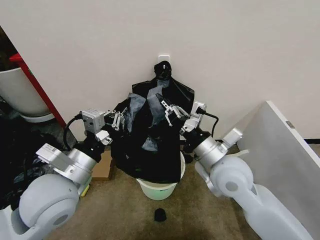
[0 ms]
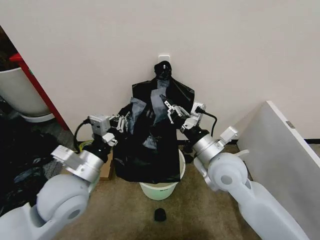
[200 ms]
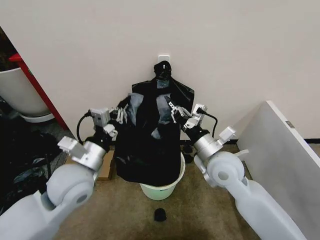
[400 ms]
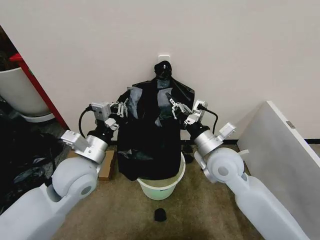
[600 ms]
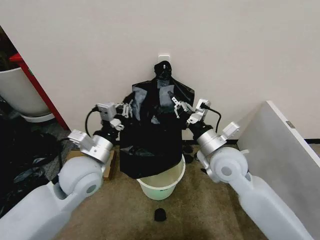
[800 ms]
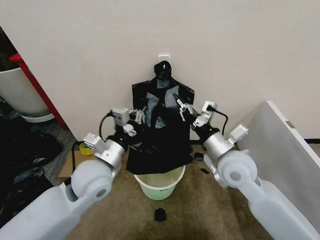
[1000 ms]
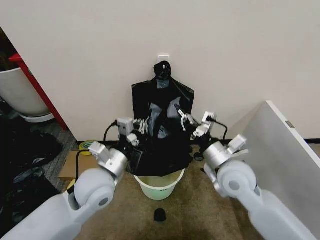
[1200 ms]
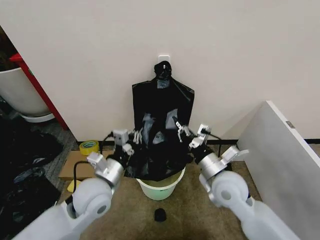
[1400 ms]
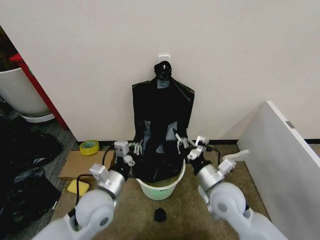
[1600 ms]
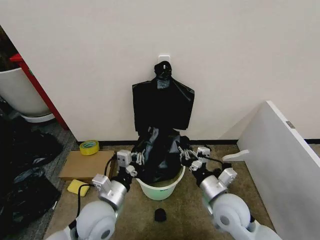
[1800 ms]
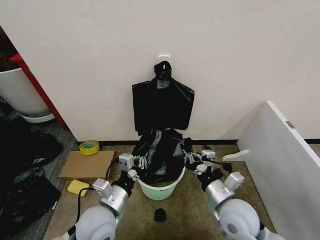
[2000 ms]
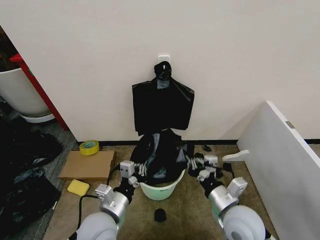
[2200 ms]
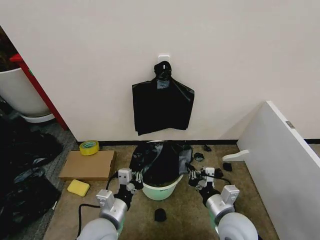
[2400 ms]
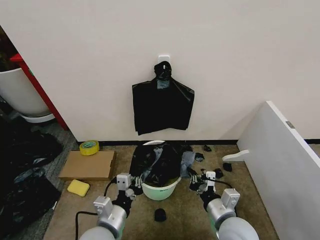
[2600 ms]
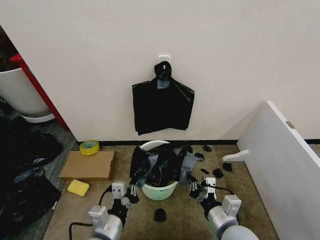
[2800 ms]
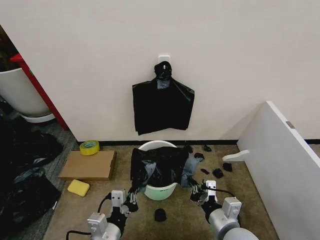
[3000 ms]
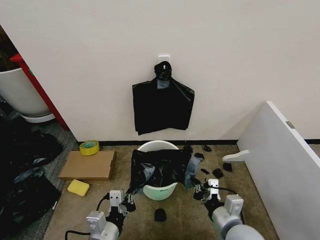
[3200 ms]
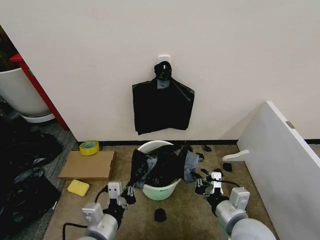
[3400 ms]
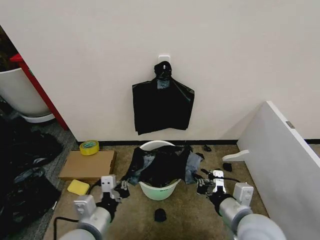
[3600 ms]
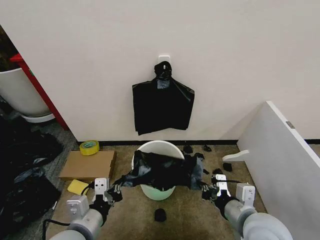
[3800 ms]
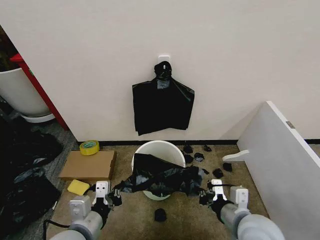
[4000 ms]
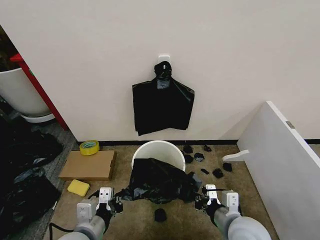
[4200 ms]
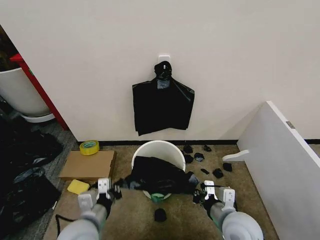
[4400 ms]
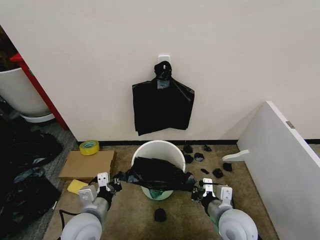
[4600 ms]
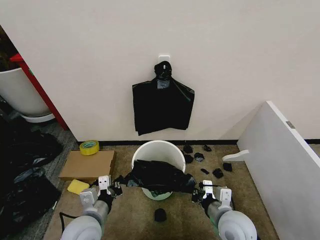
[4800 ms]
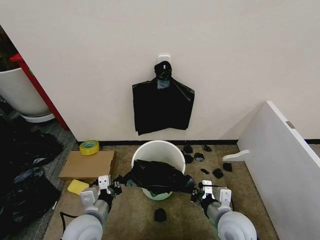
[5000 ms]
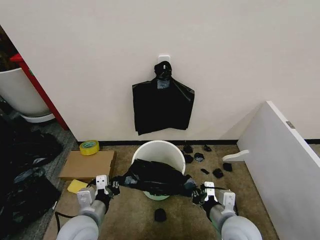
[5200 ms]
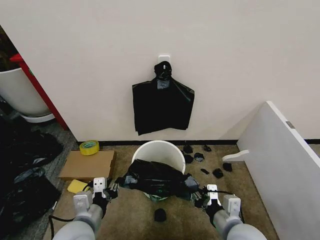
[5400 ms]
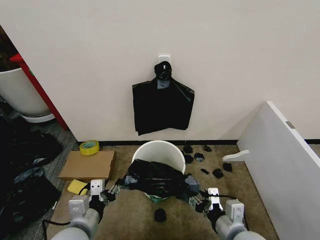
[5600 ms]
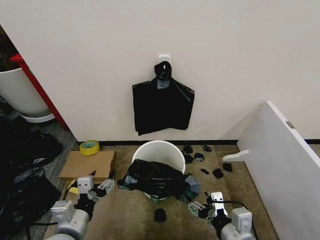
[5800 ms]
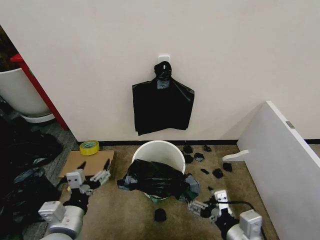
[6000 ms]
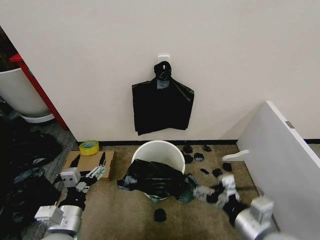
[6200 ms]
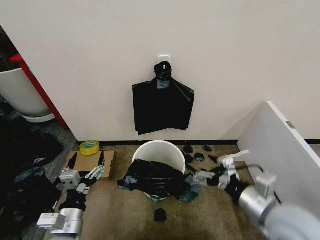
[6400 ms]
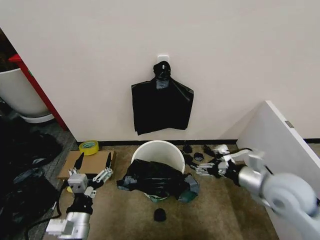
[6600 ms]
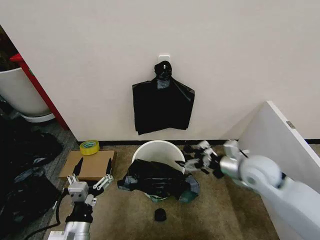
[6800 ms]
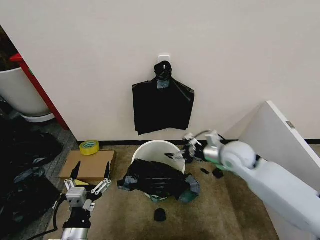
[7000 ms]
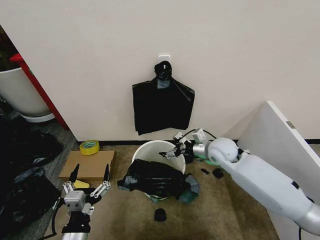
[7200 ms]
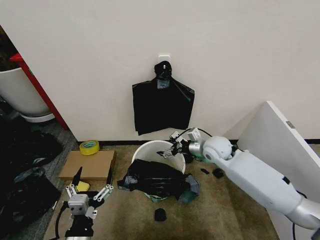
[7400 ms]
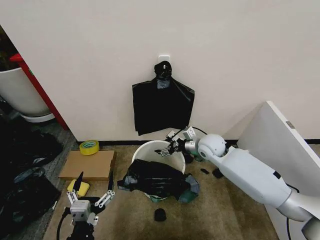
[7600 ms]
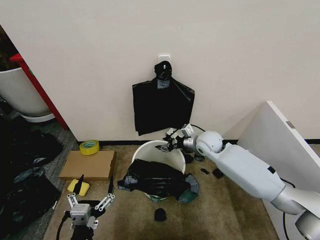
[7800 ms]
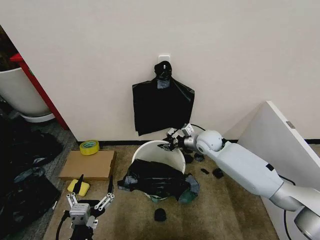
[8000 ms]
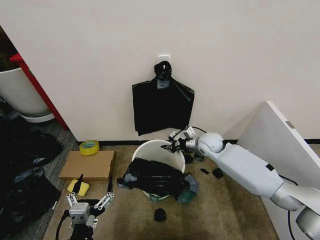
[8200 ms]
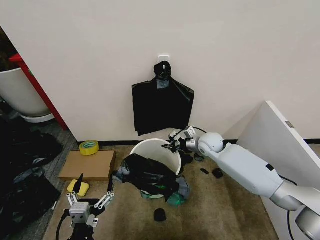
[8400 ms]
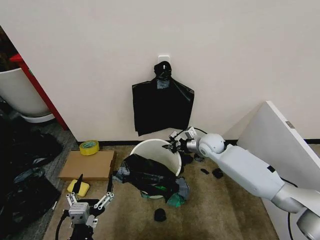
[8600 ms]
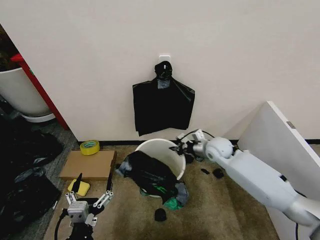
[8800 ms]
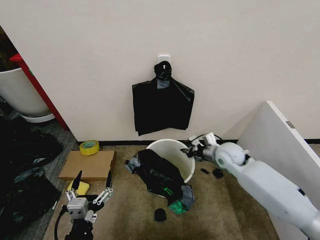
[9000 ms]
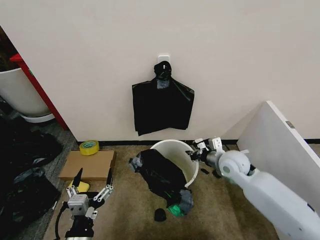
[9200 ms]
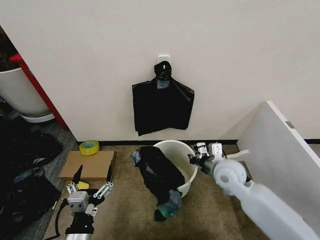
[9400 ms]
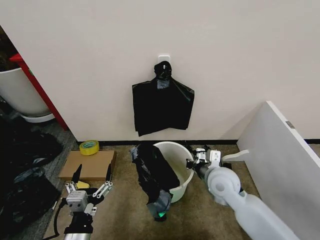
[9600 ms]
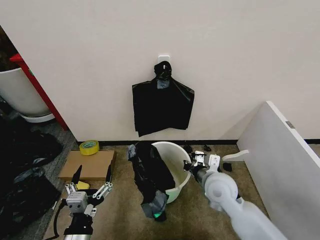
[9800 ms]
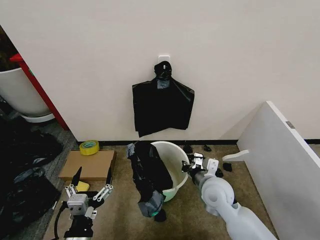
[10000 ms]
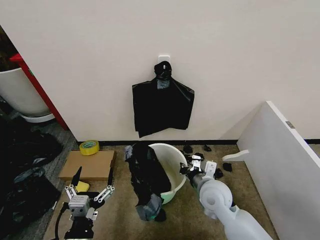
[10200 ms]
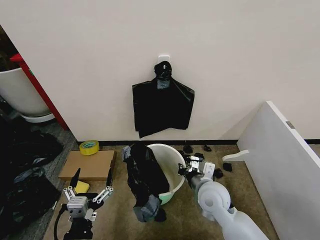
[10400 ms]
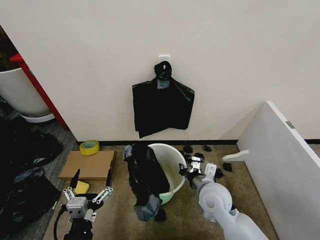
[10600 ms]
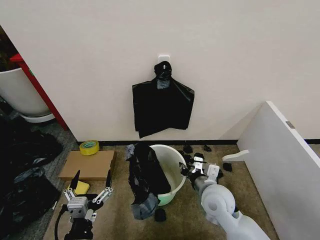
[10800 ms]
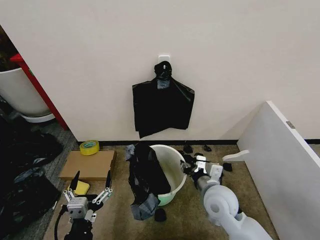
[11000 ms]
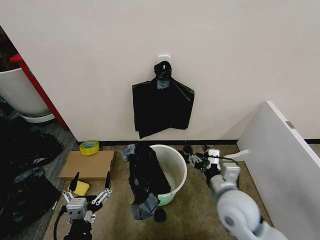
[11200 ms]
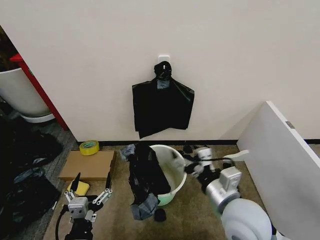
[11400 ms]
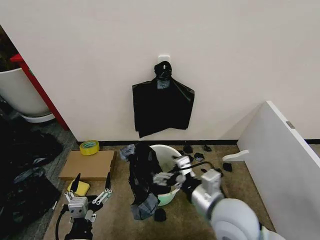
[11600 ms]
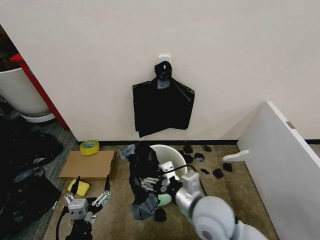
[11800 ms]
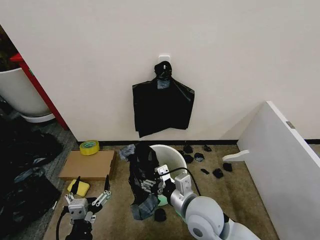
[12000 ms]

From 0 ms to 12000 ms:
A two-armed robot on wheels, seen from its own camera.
Task of the whole recording: Place the garbage bag over the trash bin.
From 0 ms to 1600 ms: Both grippers travel together downward, about 10 cm.
From 1600 ms to 3000 ms: Both grippers travel together backward, some 10 cm.
From 3000 ms to 4400 ms: The left gripper goes about 5 cm forward.
From 4400 ms to 6000 ms: The right gripper goes roughly 10 cm backward and upward, and opens its fingers, while the left gripper ends up about 5 cm from where it was, and opens its fingers.
From 6000 ms to 7600 ms: The left gripper shifts roughly 10 cm backward and downward. The right gripper heads forward, covering roughly 35 cm.
From 7600 ms to 9000 ms: The right gripper moves to the right, approximately 5 cm, and closes up.
From 9000 ms to 10400 ms: The right gripper travels backward and to the left by approximately 15 cm.
From 10400 ms to 12000 ms: The right gripper heads backward and to the left, covering approximately 10 cm, and opens its fingers.

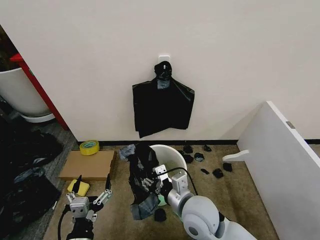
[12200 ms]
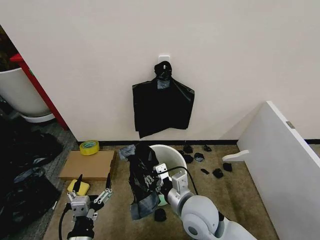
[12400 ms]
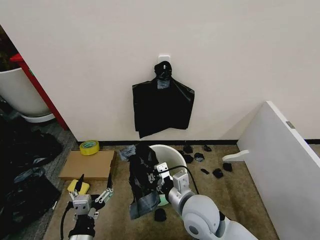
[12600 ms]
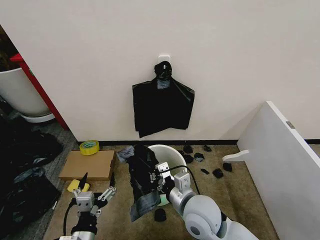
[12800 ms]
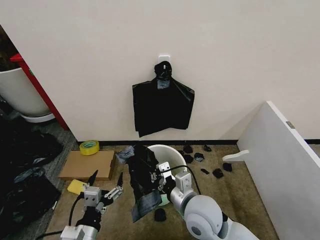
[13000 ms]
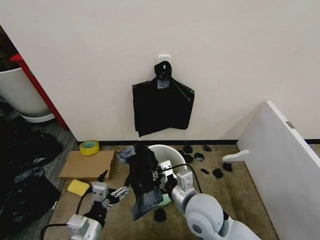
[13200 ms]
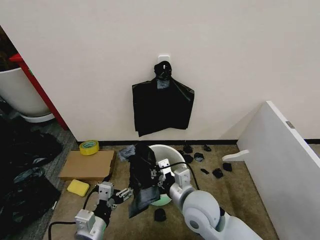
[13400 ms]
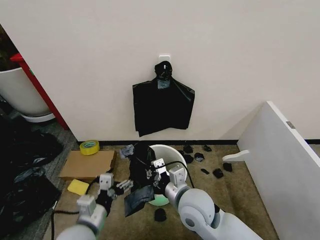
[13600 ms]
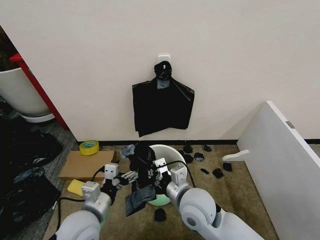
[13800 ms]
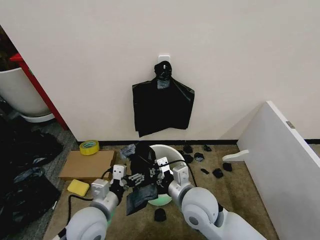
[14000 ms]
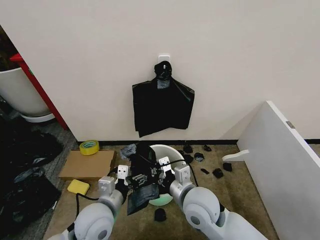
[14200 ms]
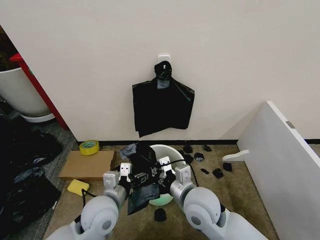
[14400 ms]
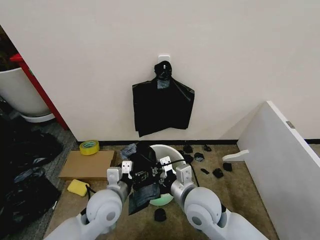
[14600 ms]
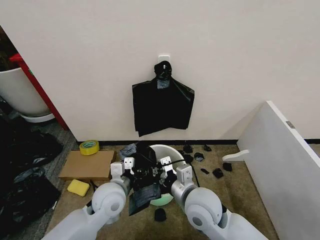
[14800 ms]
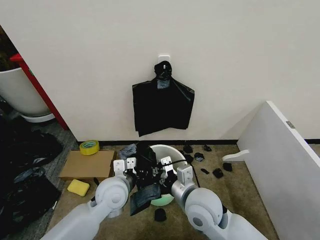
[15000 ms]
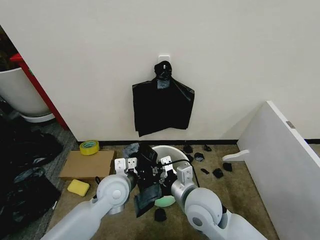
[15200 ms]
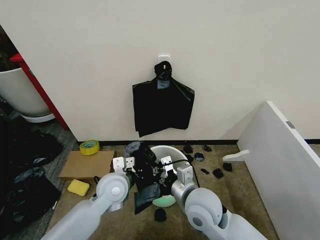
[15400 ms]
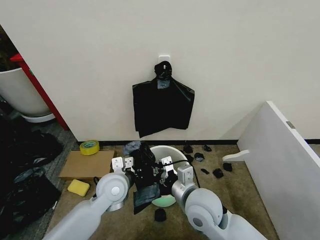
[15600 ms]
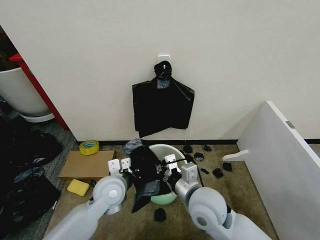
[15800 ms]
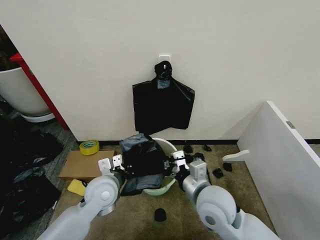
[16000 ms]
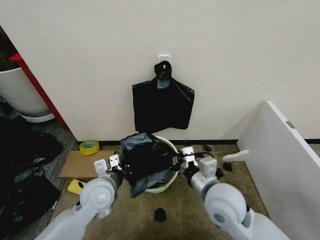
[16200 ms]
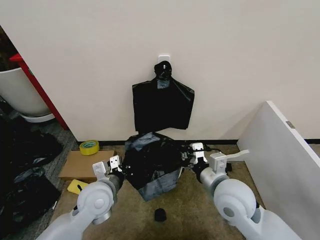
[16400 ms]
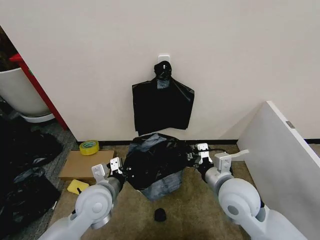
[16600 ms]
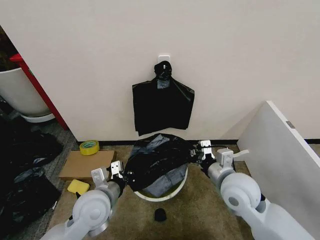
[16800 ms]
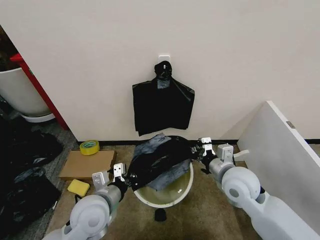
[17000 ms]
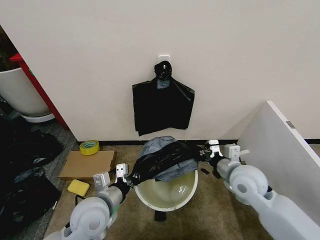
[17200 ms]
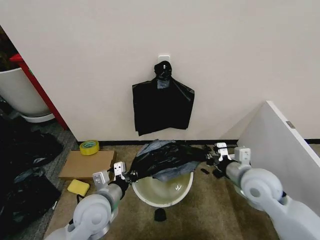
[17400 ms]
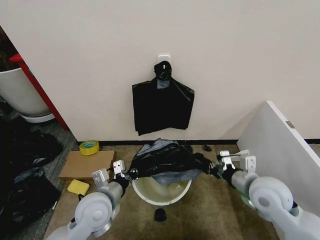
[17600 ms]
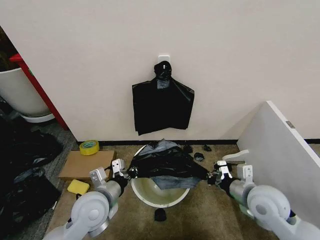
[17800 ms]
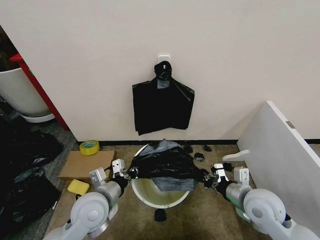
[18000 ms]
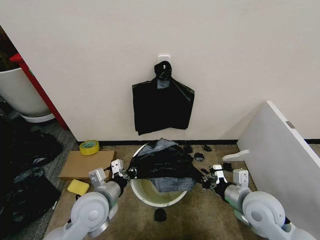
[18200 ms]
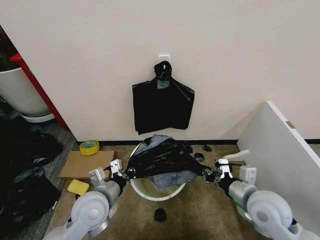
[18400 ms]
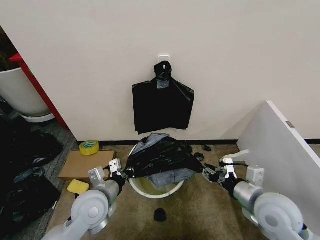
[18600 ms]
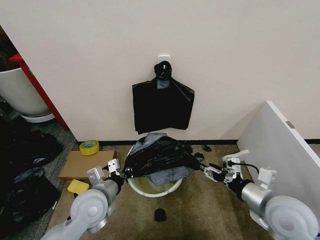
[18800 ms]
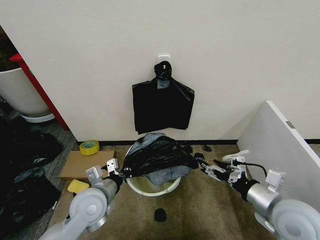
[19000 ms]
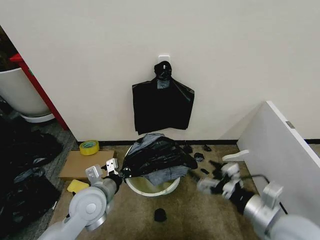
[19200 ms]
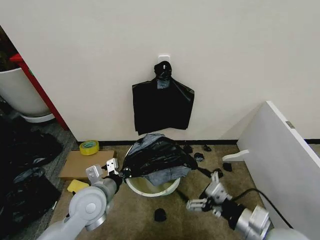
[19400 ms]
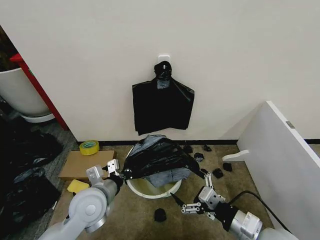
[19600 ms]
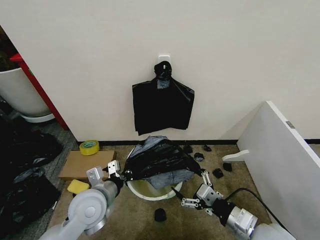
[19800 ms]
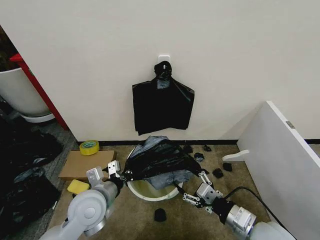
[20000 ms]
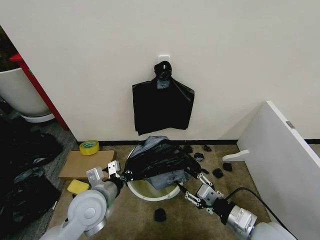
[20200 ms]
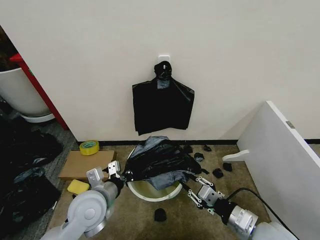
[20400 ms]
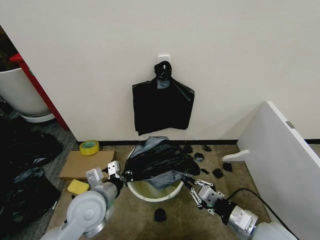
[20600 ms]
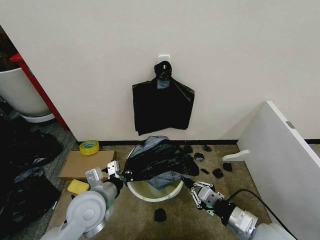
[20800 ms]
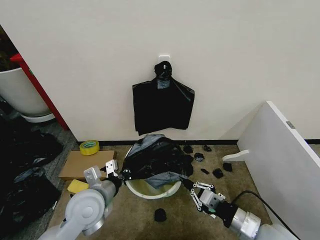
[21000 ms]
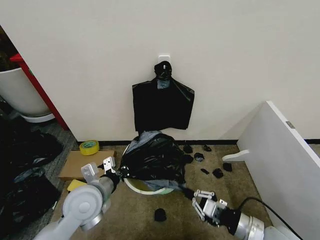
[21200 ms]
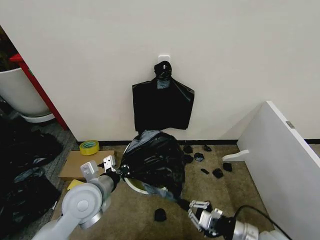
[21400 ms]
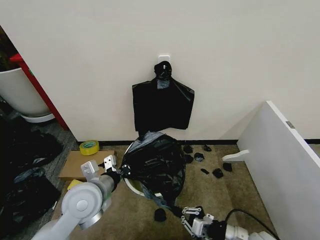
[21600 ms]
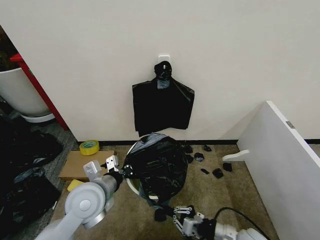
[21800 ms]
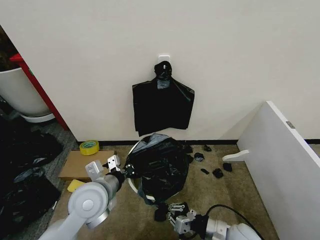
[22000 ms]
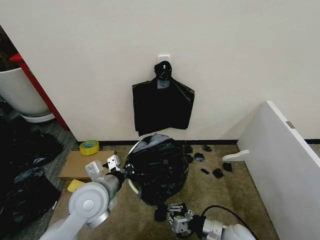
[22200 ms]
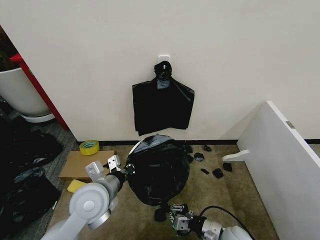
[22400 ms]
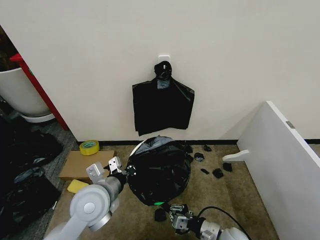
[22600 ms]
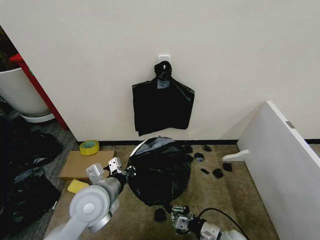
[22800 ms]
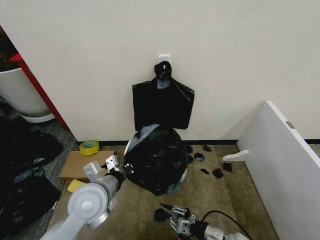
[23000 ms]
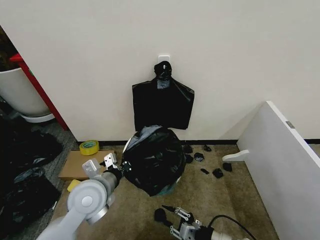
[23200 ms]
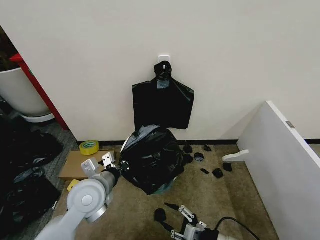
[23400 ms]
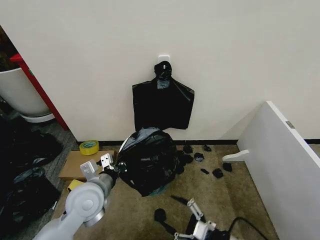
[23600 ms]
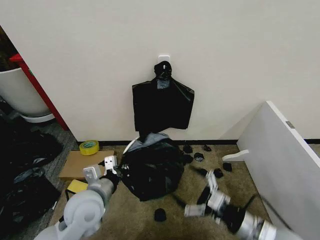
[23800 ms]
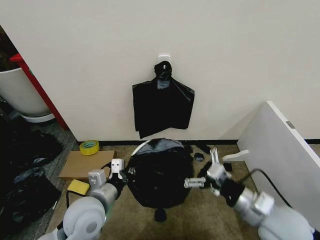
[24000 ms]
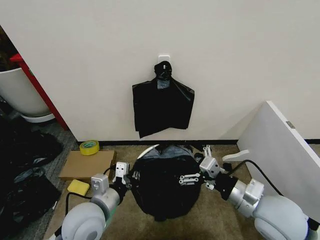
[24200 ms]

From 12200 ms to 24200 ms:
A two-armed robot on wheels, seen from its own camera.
Task of the whole recording: Place the garbage bag over the trash bin.
From 12200 ms to 13800 ms: The right gripper closes; the left gripper travels forward and upward by approximately 10 cm.
From 13800 ms to 15200 ms: The left gripper travels forward and to the right by roughly 10 cm, and closes up.
From 15200 ms to 16600 ms: The right gripper shifts about 10 cm to the right. The left gripper changes place by some 5 cm.
From 16600 ms to 18200 ms: The right gripper travels to the right by roughly 10 cm.
From 18200 ms to 19800 ms: The right gripper travels backward by approximately 10 cm, and opens.
From 19800 ms to 21200 ms: The right gripper closes its fingers.
From 21200 ms to 22600 ms: The right gripper moves downward and to the left, approximately 15 cm.
From 22600 ms to 24200 ms: The right gripper travels upward by roughly 20 cm, and opens its fingers.
